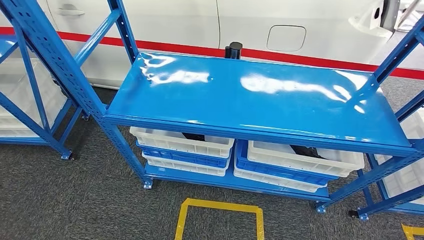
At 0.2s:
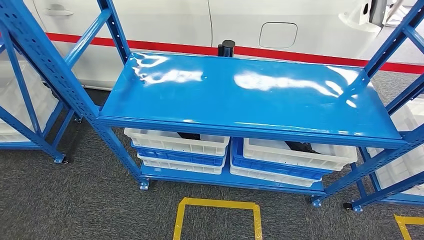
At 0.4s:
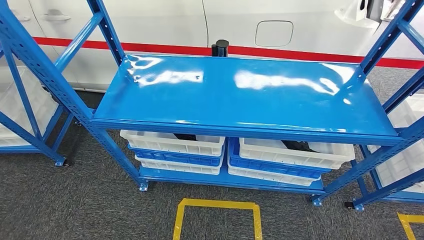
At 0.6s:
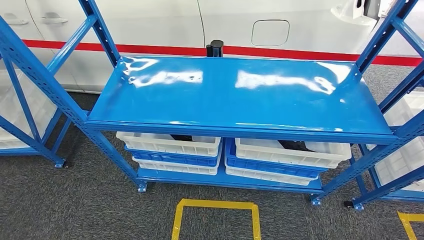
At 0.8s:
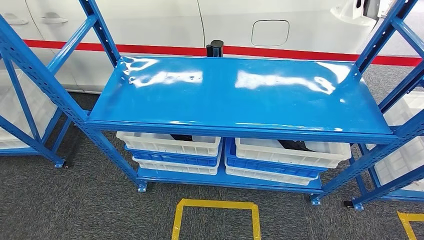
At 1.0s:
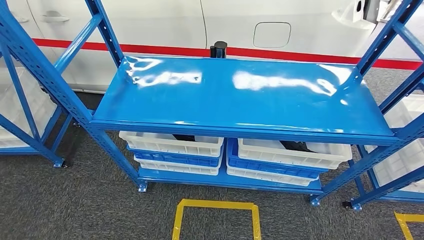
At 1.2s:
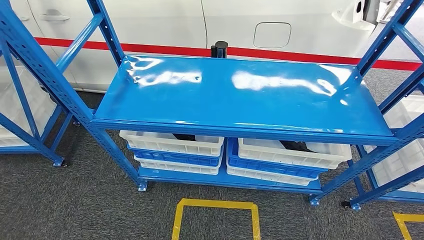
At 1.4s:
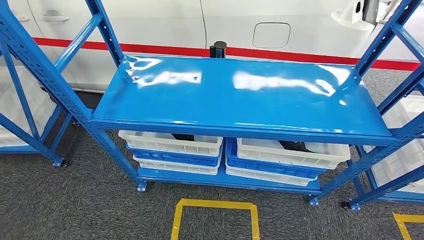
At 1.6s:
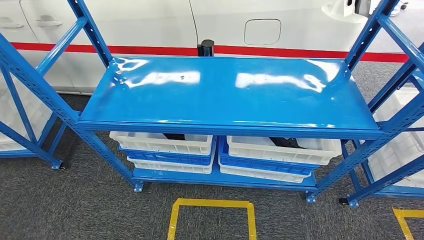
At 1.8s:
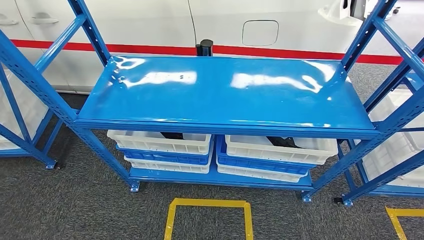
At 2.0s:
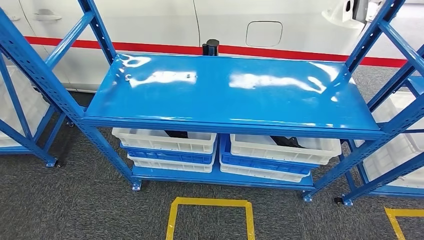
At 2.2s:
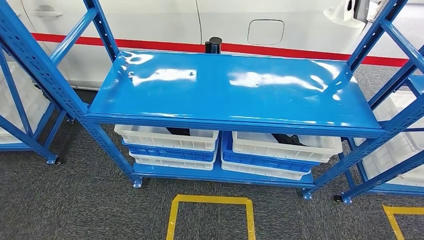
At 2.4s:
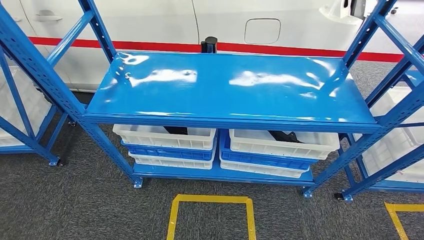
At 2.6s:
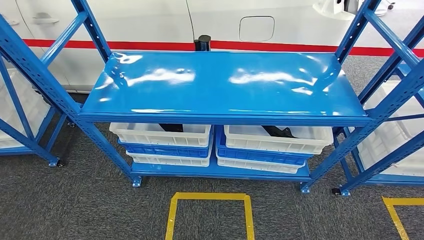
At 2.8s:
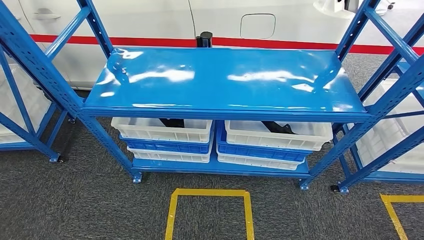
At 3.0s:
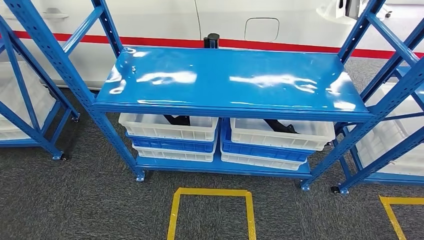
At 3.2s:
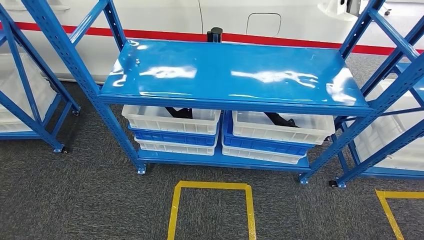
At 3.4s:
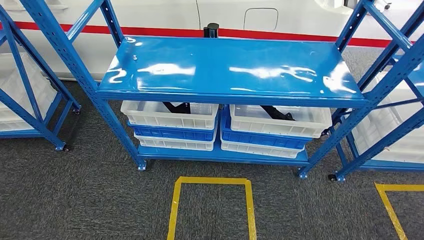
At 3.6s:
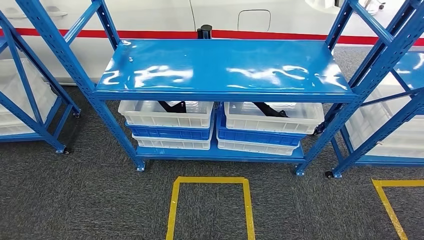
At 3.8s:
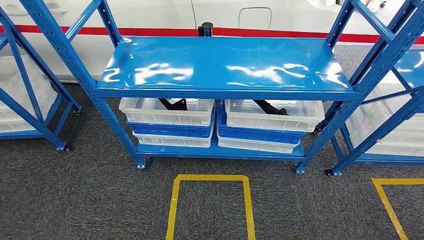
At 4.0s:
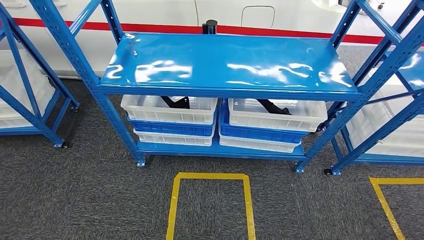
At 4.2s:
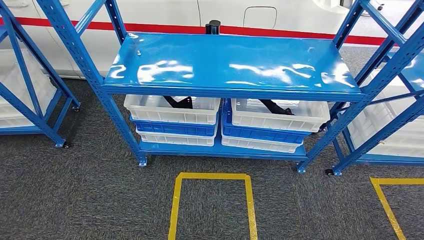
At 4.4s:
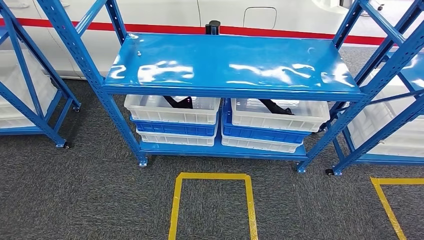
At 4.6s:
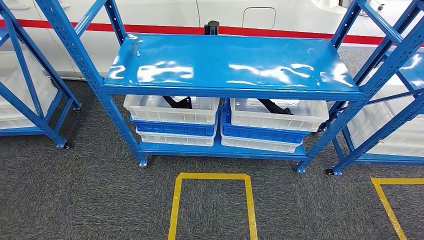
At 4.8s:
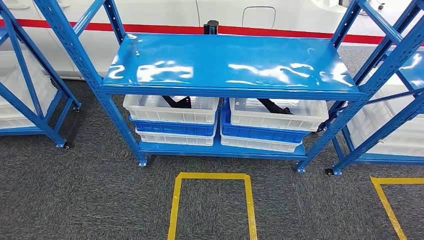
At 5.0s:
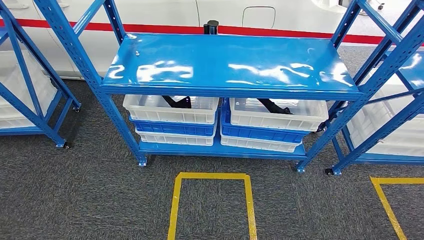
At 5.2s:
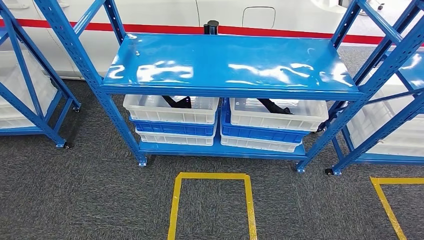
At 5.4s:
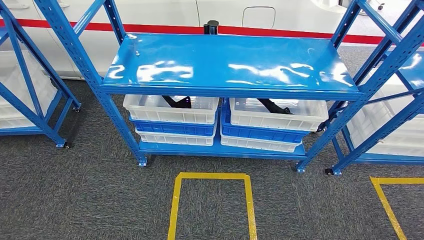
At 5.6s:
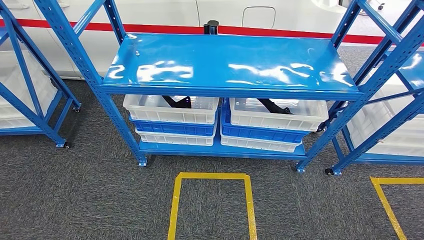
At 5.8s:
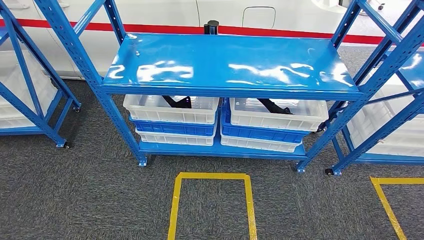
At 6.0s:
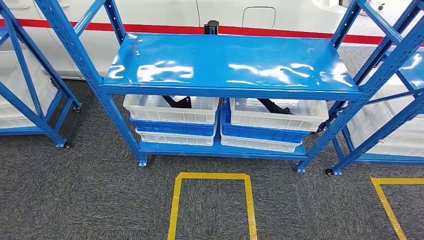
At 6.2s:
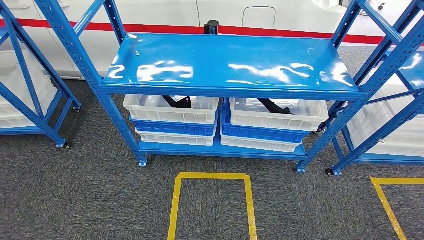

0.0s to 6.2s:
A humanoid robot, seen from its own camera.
Step, 0.0s to 6.2s: Move to the initial position of the shelf.
4.6s to 6.2s: The left hand goes some 10 cm backward.

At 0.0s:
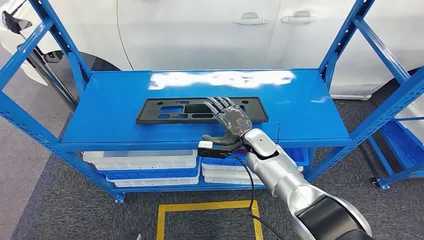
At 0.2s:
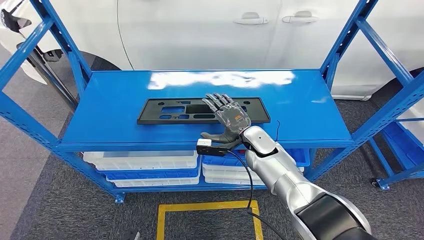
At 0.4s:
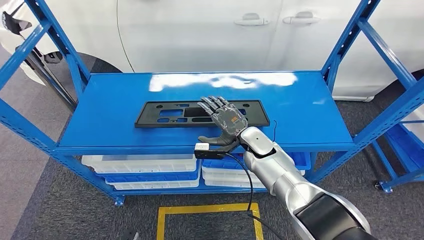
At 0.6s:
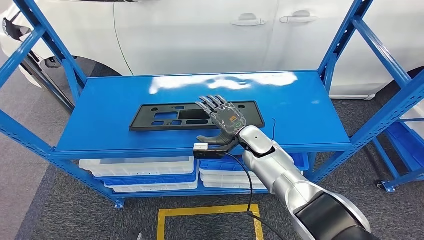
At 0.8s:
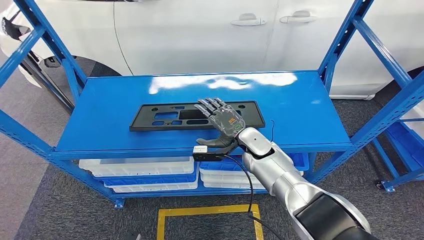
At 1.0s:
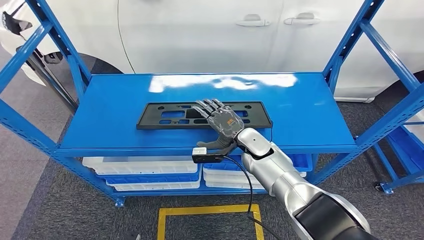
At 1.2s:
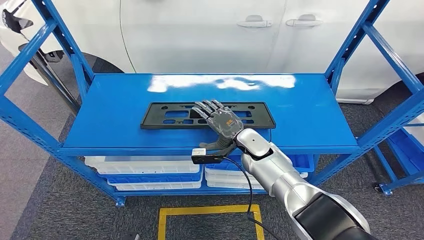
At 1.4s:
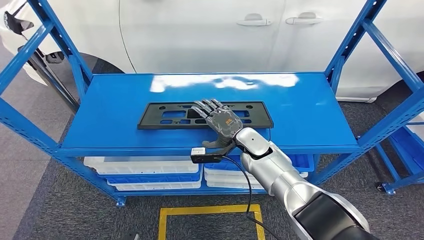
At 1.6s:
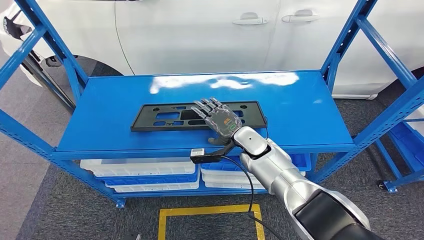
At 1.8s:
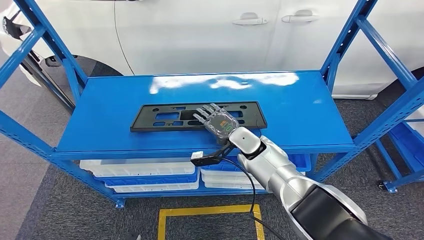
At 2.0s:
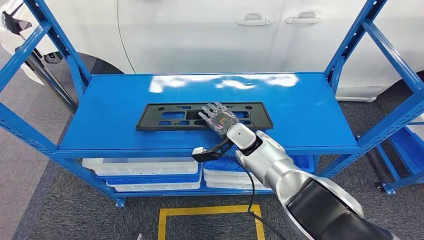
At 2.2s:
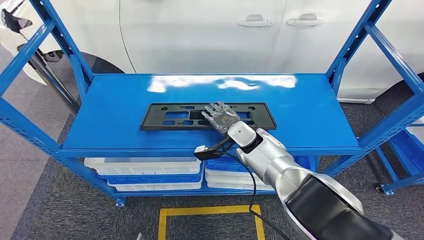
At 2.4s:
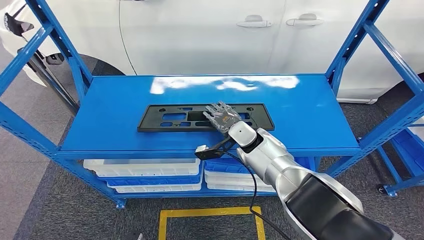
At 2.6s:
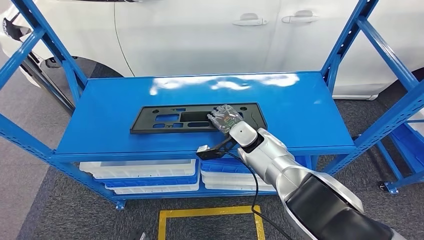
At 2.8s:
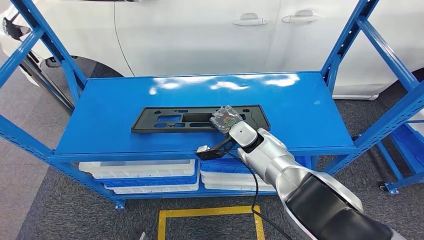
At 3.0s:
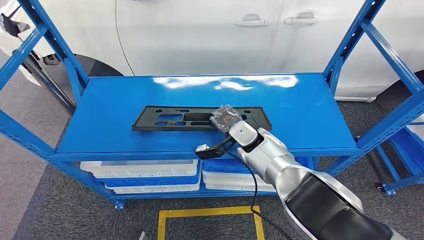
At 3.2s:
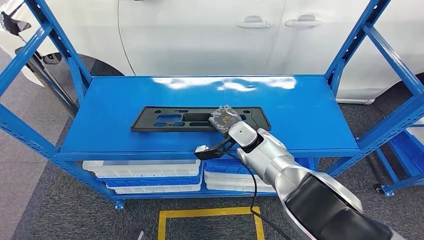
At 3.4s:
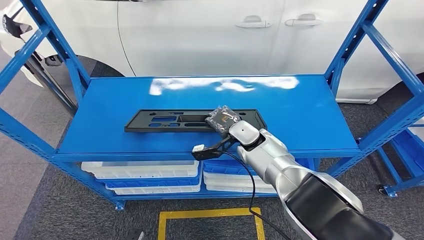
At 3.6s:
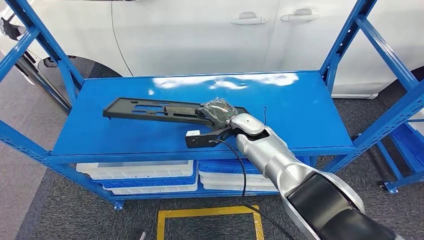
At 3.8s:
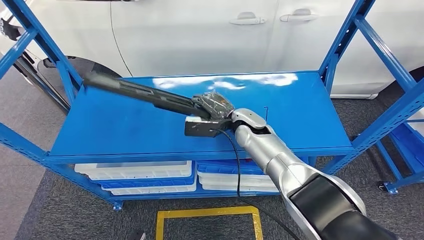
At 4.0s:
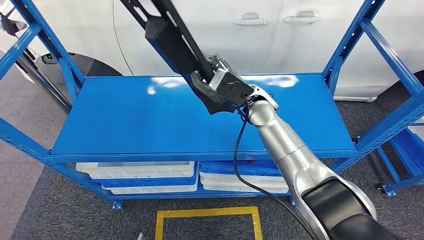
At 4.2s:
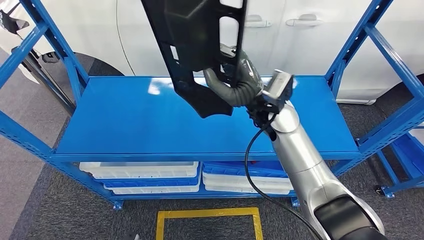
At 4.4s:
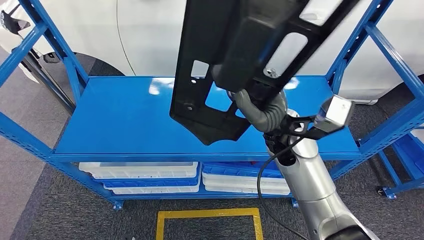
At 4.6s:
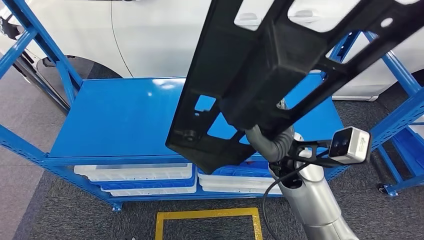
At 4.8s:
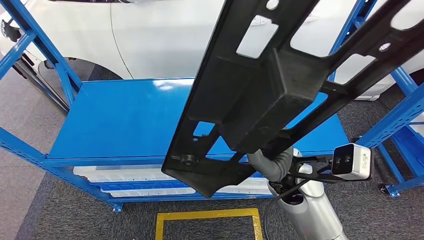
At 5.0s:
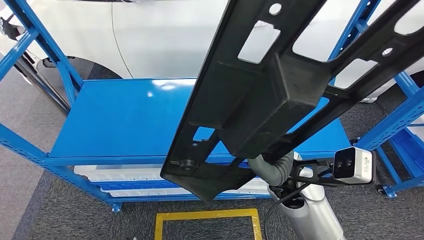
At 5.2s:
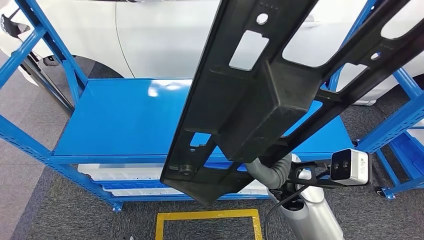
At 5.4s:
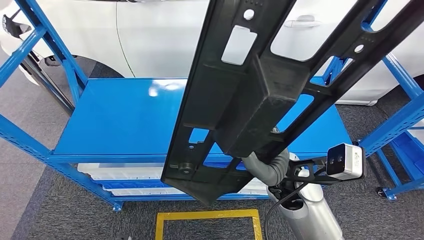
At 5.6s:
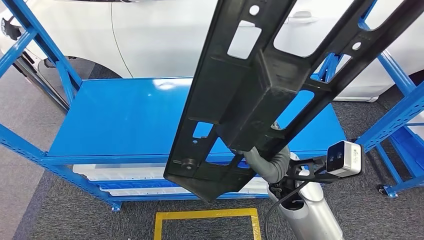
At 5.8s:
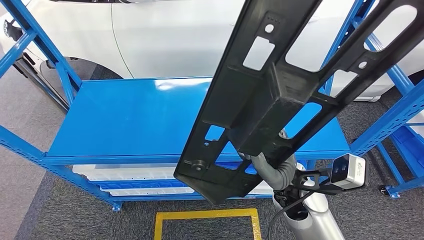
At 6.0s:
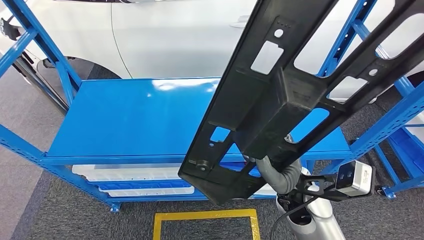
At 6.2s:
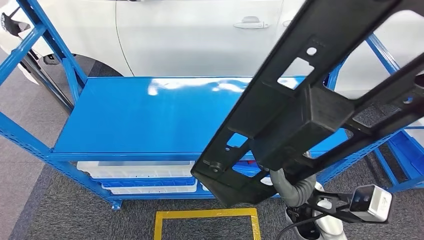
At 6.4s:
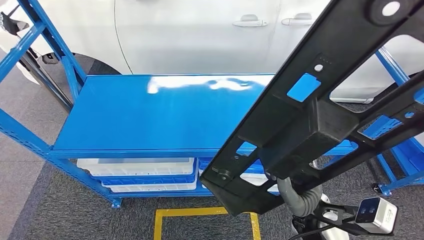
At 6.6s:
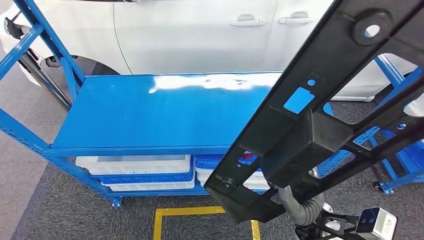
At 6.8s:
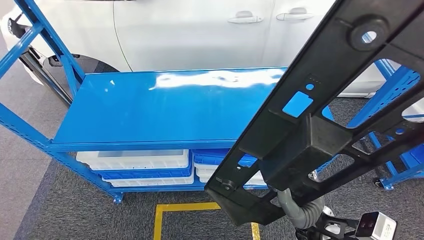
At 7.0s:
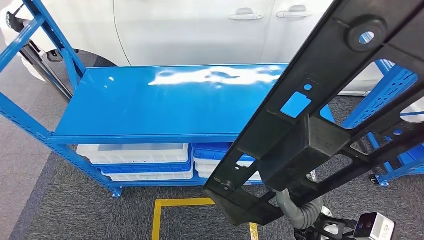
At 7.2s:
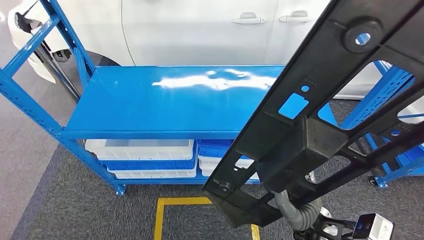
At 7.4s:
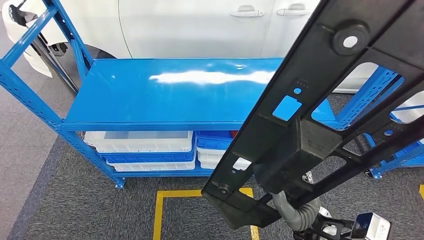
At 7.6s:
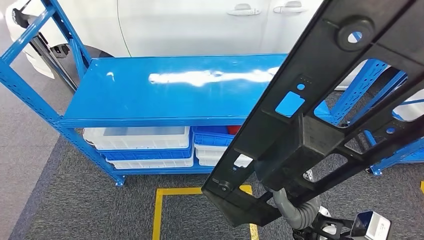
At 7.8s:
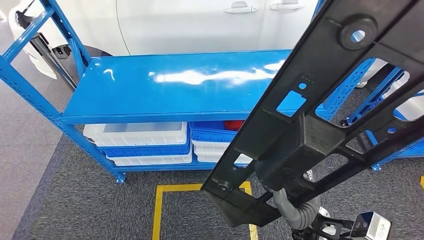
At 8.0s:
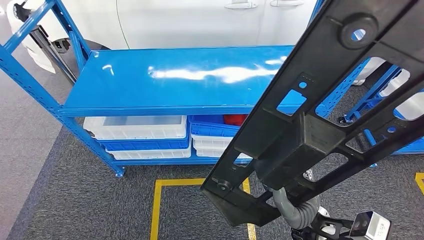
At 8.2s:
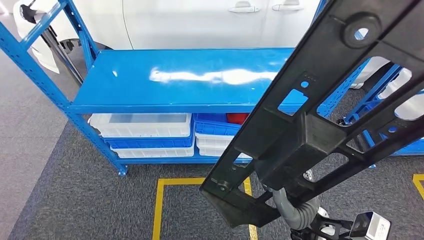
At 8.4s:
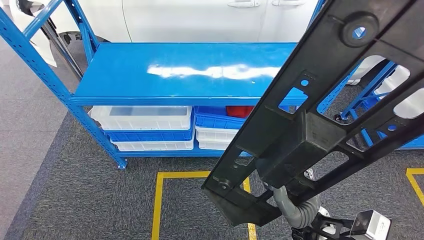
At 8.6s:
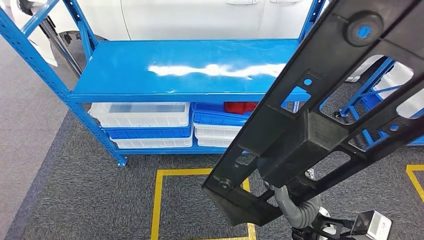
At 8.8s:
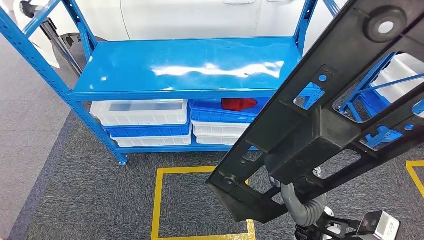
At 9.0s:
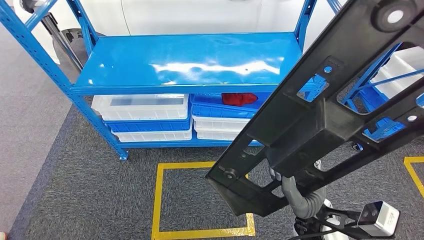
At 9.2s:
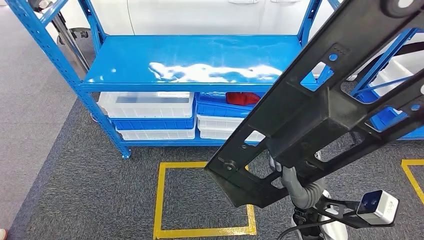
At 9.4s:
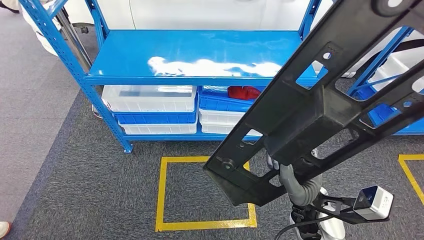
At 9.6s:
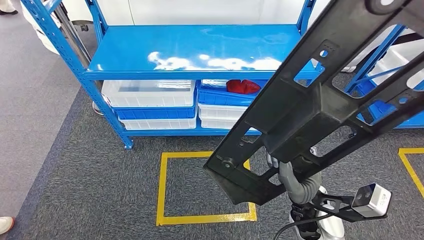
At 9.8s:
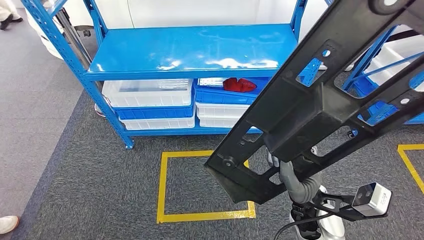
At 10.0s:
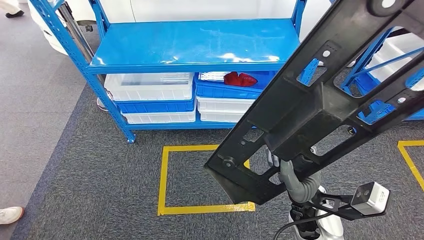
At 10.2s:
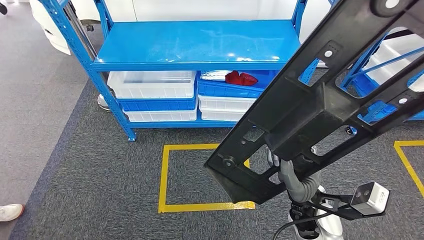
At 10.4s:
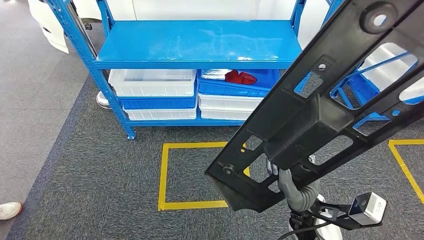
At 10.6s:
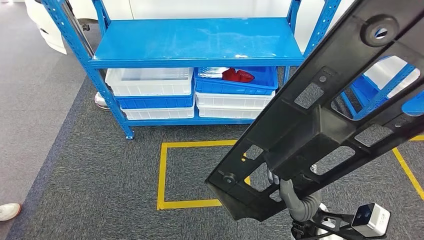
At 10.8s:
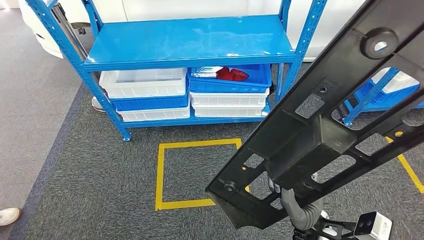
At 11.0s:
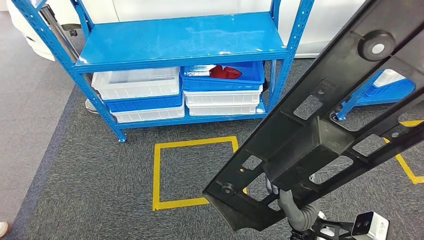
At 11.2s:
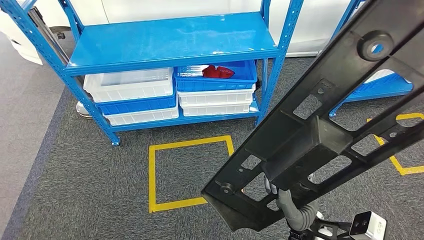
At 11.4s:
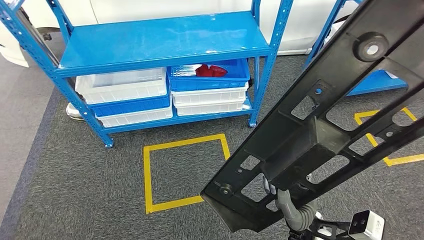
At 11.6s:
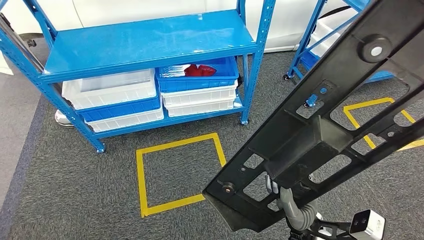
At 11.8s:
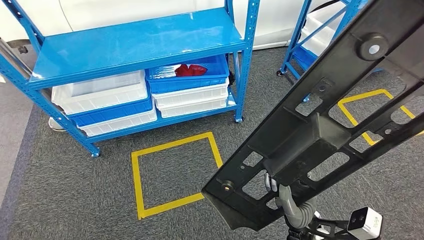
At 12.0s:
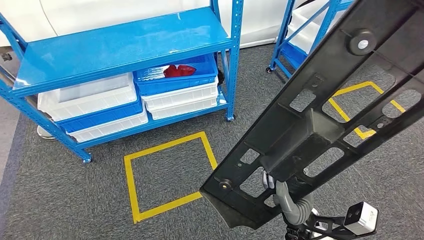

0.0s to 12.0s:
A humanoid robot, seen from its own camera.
Step, 0.0s to 6.4s: Pick up the large material from the shelf.
